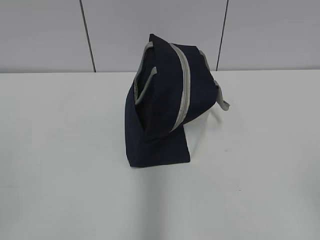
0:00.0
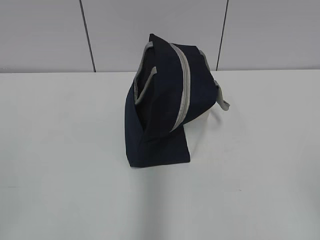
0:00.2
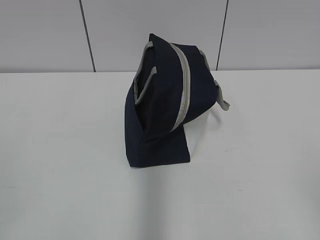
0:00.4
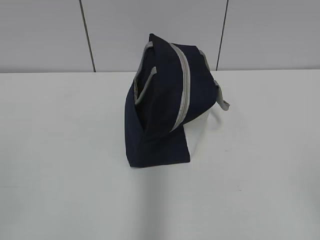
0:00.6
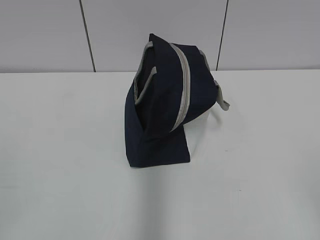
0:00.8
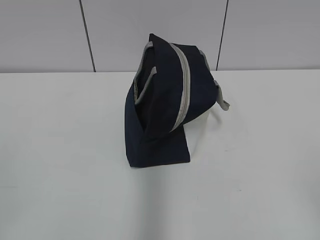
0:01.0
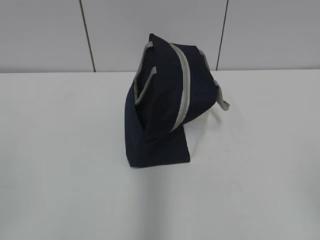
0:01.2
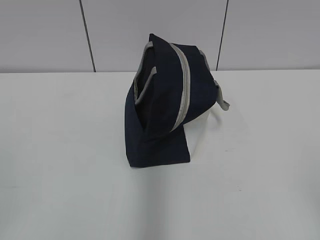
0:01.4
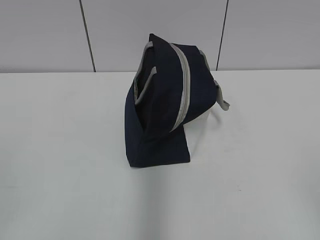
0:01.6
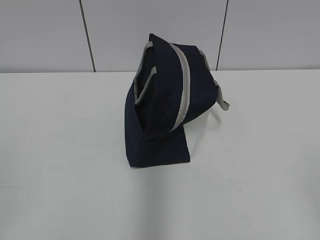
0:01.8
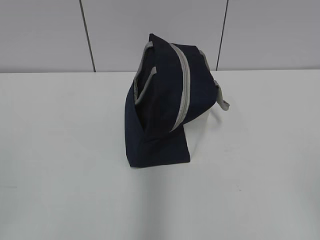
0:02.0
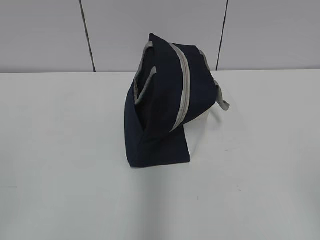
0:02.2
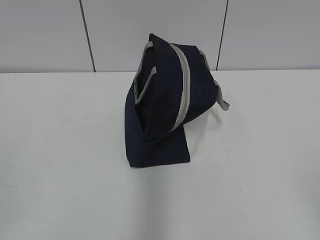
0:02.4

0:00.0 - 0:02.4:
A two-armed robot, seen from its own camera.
0:00.0 - 0:02.4: Both grippers stay about where they are.

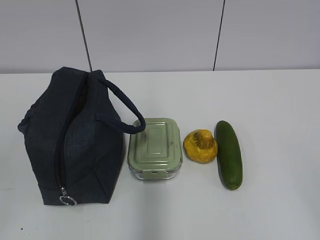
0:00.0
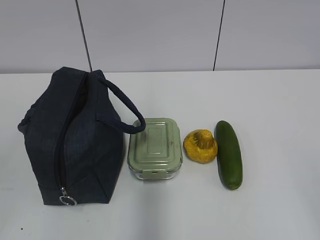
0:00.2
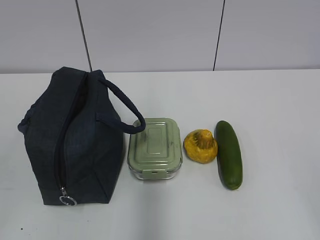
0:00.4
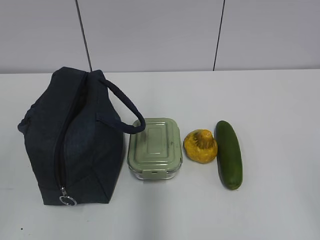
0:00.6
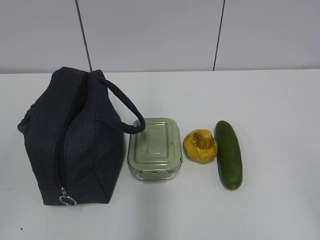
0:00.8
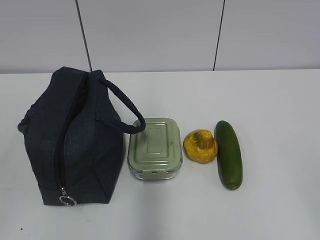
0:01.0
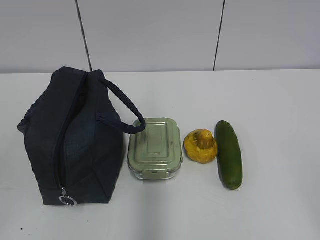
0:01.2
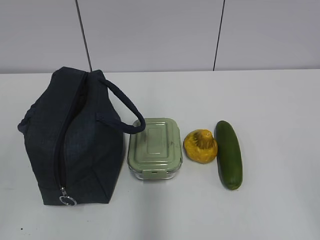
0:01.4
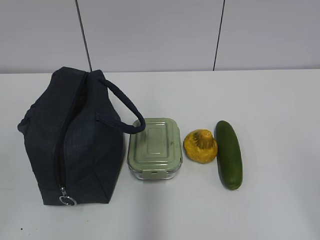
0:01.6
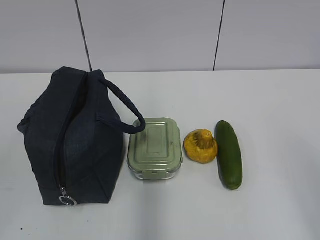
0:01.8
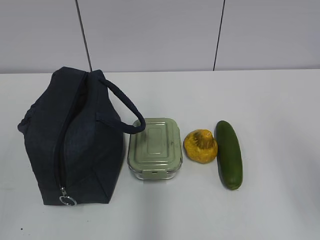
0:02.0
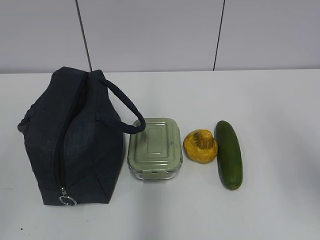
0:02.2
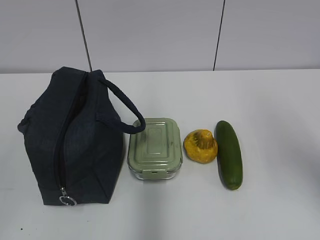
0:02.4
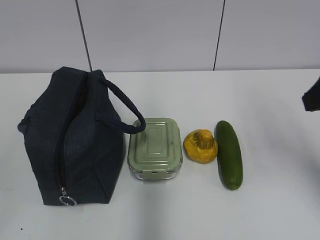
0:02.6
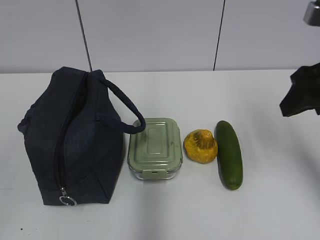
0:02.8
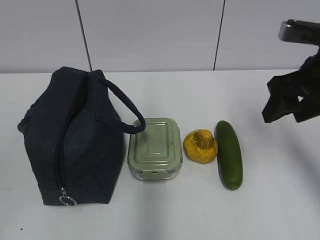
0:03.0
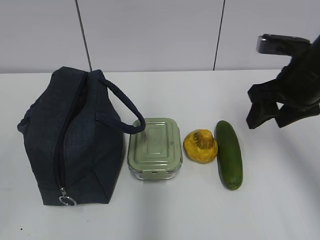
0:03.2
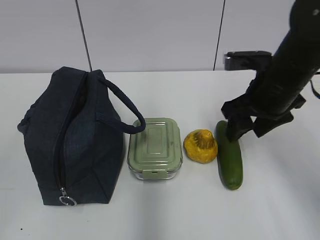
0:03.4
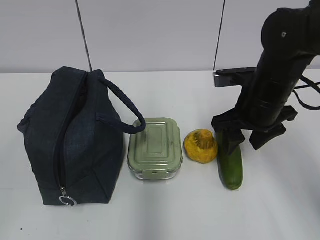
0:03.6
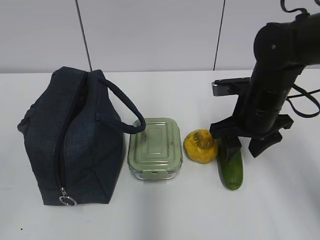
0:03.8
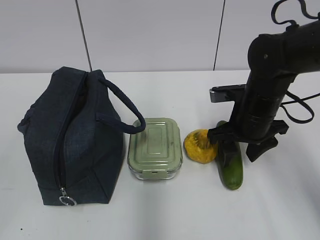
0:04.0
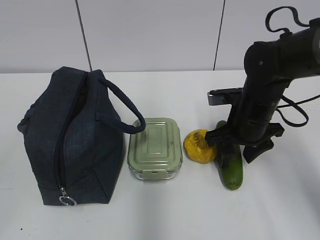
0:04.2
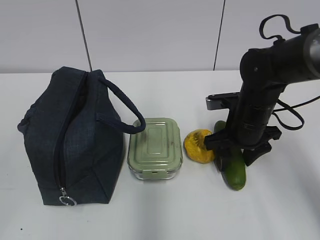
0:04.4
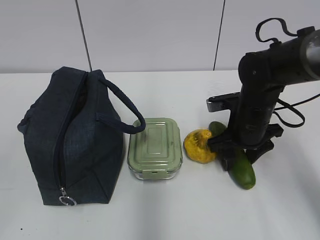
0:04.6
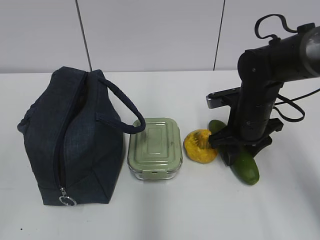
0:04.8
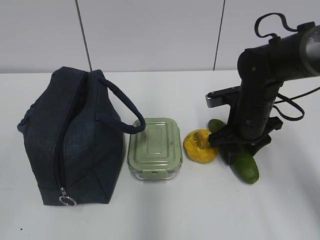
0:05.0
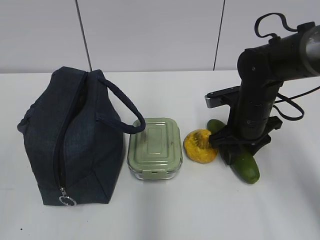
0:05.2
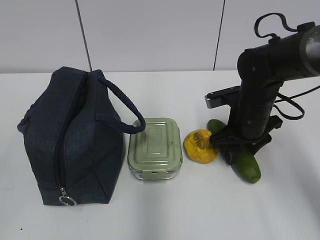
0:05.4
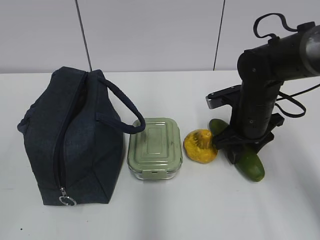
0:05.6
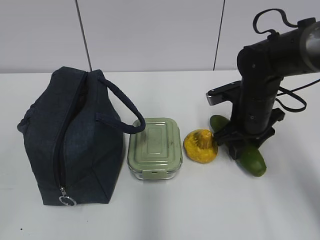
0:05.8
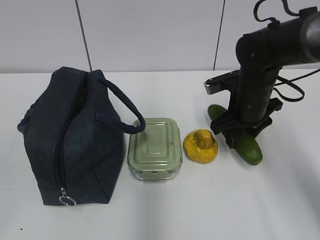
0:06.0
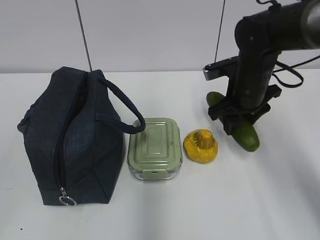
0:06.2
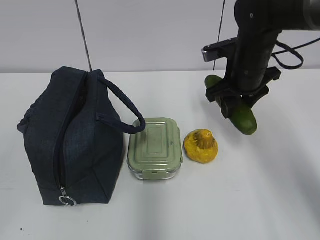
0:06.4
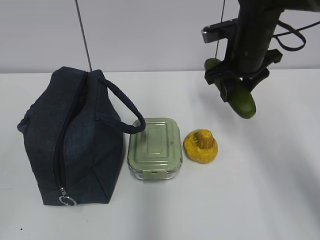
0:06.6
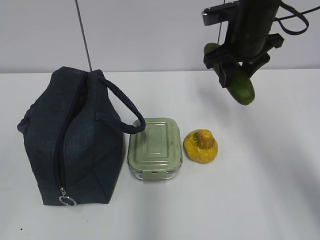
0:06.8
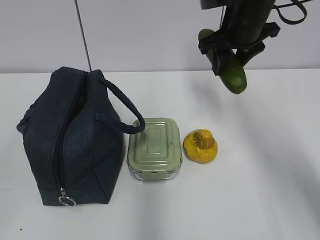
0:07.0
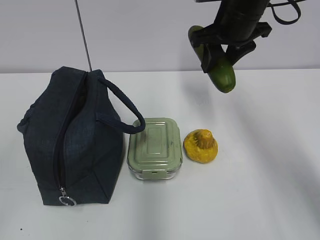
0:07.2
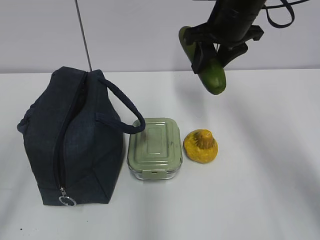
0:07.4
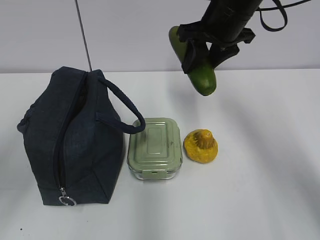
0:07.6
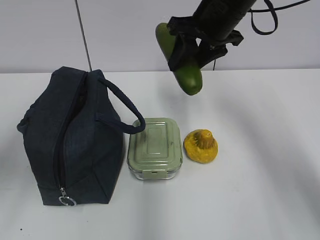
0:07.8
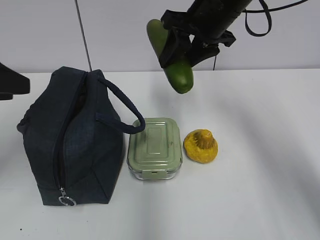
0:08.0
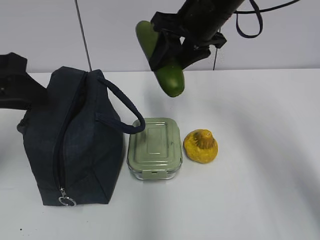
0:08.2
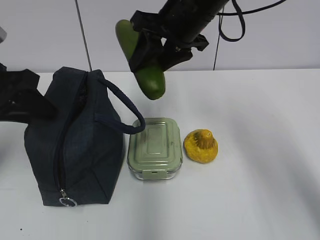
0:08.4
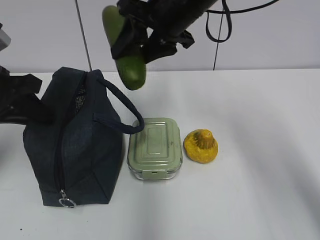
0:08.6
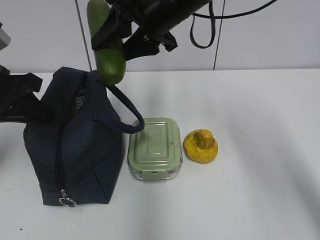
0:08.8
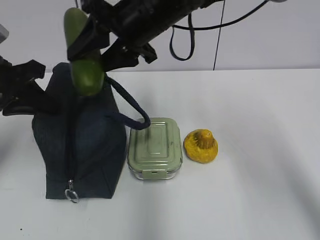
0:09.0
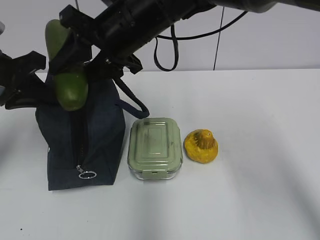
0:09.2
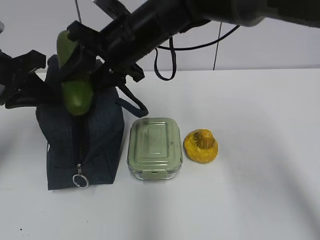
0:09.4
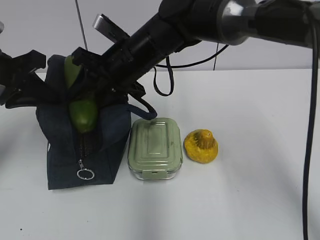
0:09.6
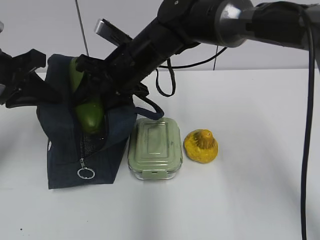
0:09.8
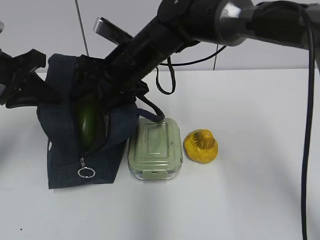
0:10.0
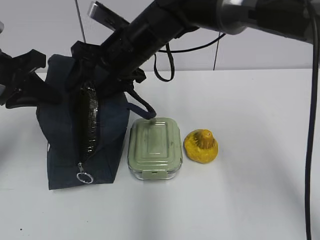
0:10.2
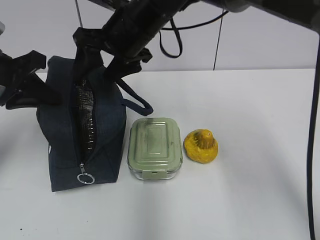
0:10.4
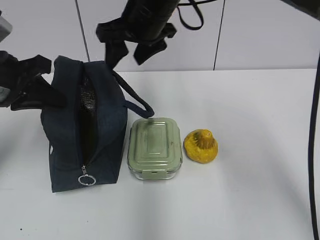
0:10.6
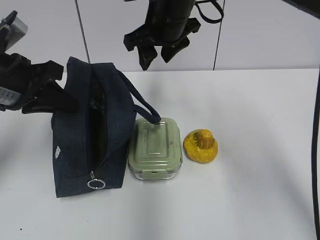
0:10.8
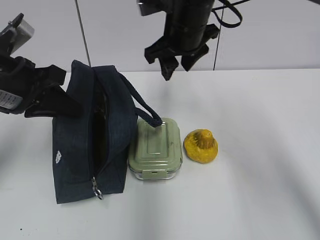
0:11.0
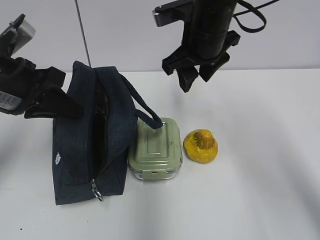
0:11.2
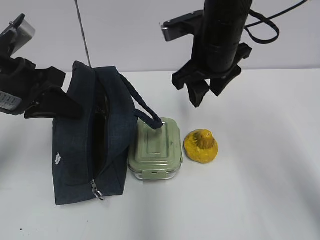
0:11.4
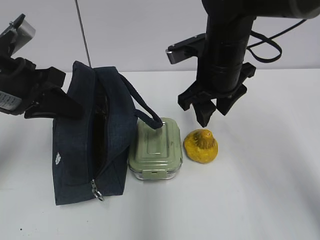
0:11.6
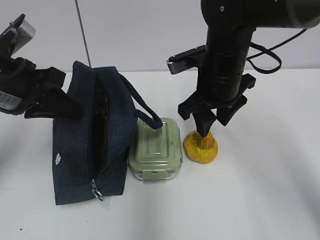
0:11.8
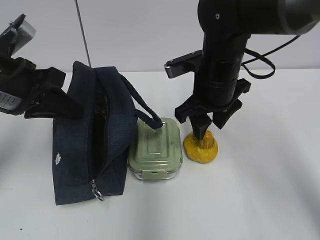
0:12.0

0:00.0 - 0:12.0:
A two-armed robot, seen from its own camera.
Step, 0:00.0 - 0:04.6: Grab the cucumber with your right hand.
Step, 0:04.8 - 0:09.4: Grab the lunch bag with your left hand.
Step, 0:09.6 - 0:10.0: Place it into the bag with your right hand.
0:01.6 - 0:03.0: The right gripper heads forward, covering roughly 30 cm.
0:03.0 - 0:04.4: The right gripper goes roughly 15 cm downward, to the left and forward.
0:04.4 - 0:06.0: The grippers make only small movements.
0:06.0 - 0:07.6: The right gripper is displaced upward by about 15 cm. The left gripper is displaced forward by approximately 15 cm.
0:07.6 - 0:09.0: The left gripper travels forward by approximately 15 cm, and closes up, while the right gripper moves to the left, roughly 10 cm.
0:09.0 - 0:10.4: The right gripper travels downward and back again, approximately 10 cm each way.
0:10.4 - 0:12.0: The right gripper goes about 15 cm to the right and downward.

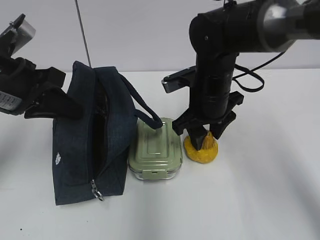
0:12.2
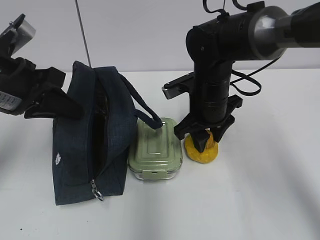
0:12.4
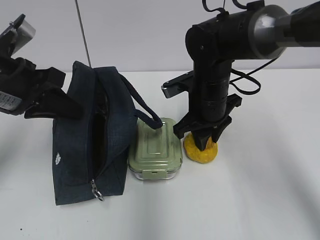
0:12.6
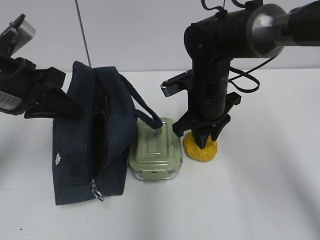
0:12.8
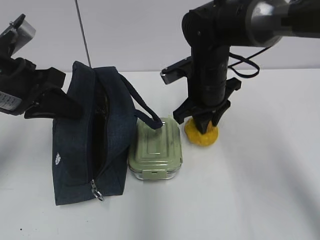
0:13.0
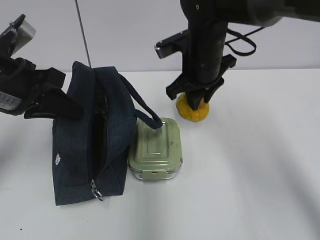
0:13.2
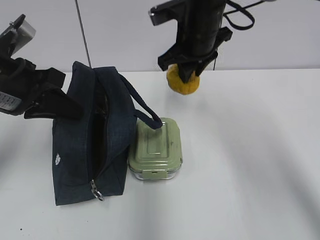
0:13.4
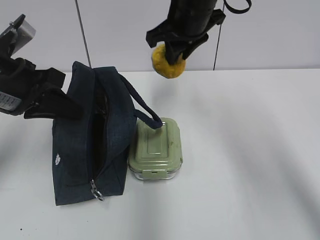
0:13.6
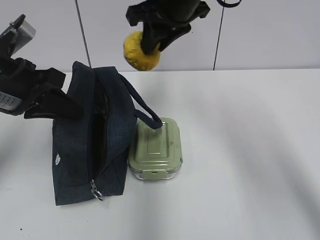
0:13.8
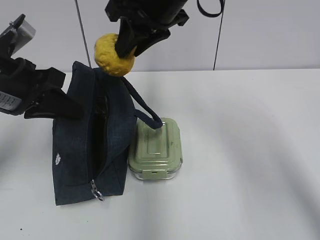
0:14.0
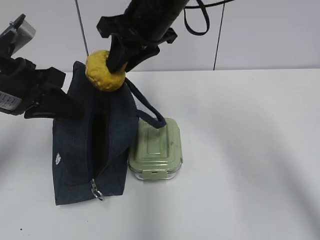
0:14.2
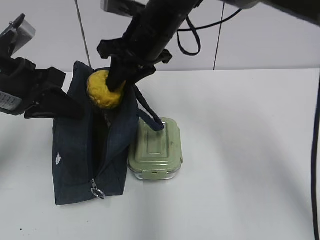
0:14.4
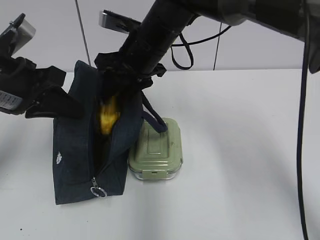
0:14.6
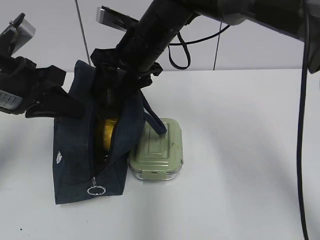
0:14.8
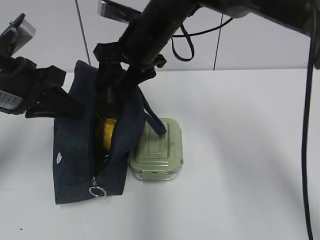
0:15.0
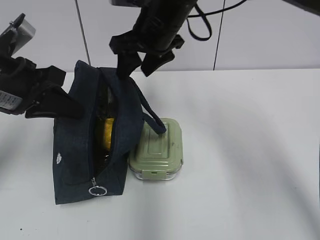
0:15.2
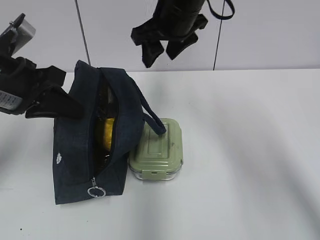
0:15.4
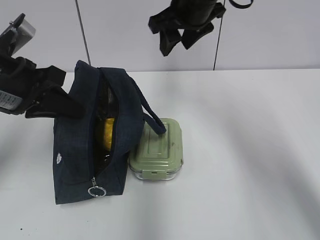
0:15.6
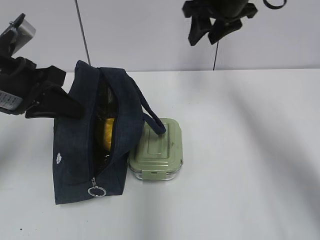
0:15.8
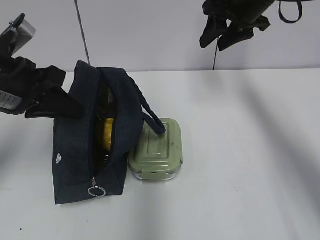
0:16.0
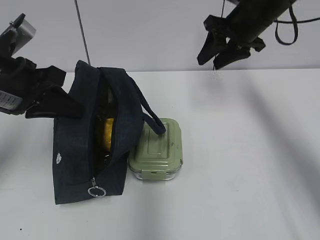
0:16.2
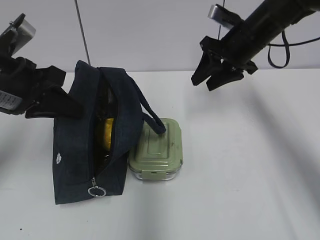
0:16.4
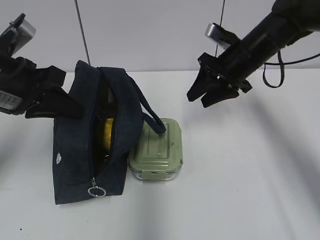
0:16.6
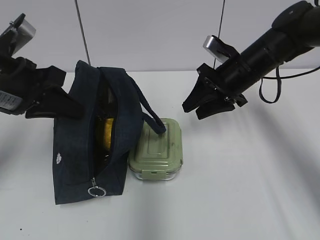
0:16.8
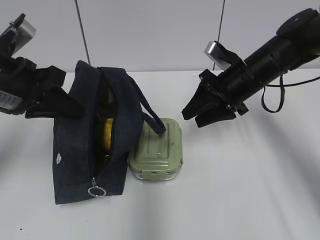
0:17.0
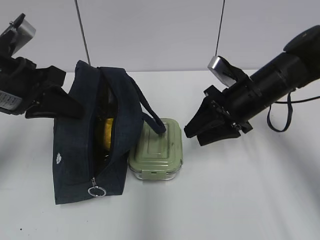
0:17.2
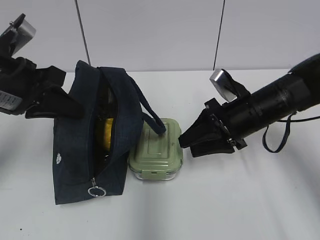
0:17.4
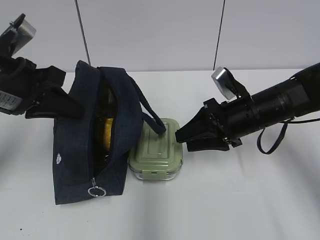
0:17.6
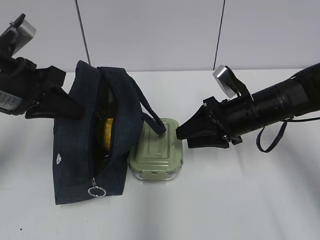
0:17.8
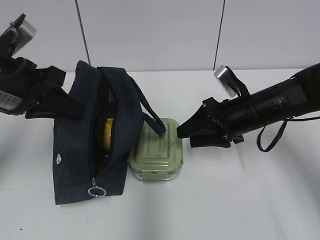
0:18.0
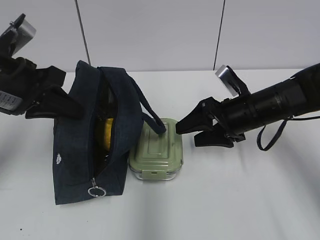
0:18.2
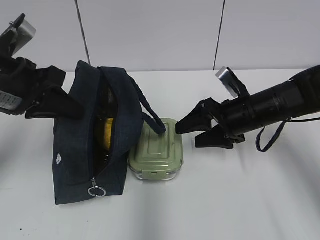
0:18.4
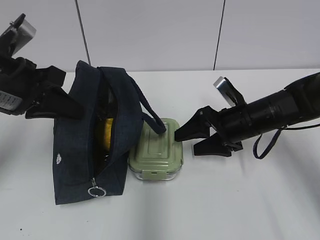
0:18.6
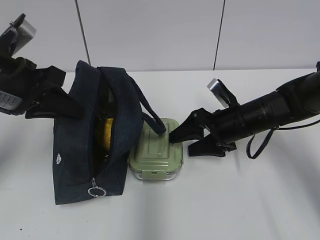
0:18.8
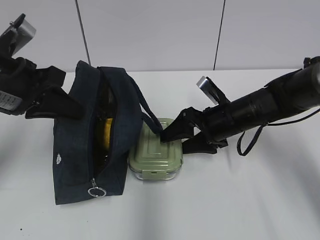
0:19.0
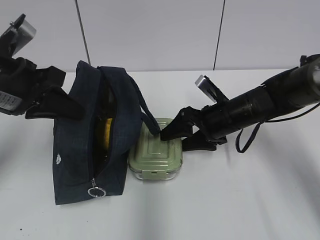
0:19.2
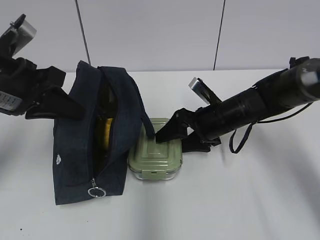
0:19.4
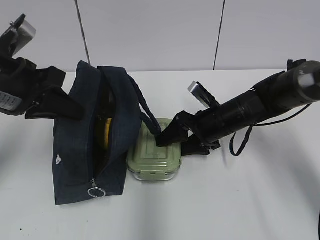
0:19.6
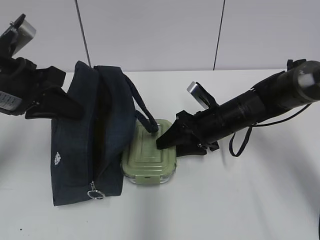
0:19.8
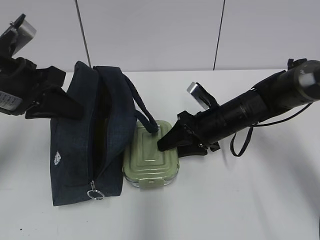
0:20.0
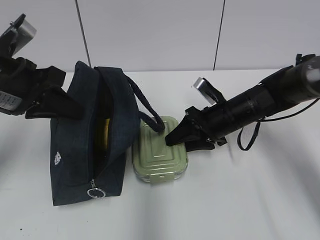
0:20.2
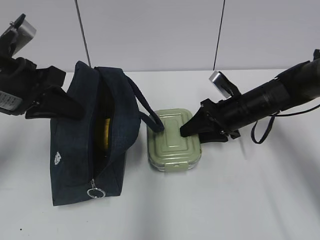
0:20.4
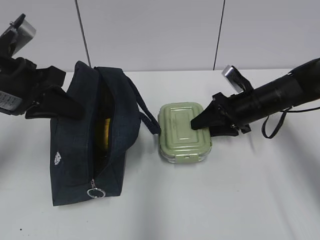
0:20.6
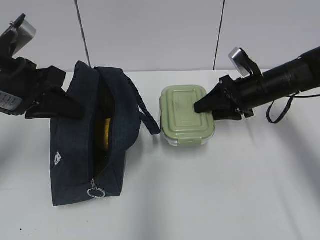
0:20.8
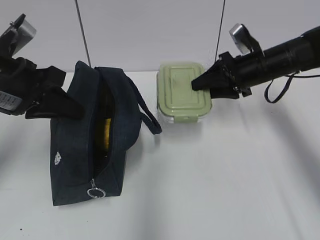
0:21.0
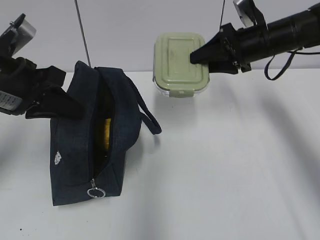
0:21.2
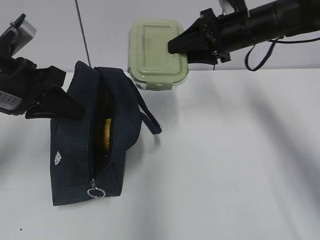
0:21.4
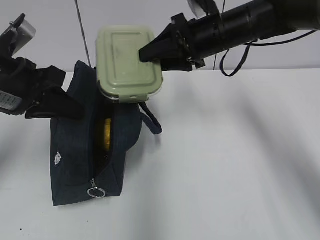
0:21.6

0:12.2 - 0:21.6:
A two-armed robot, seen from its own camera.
Step, 0:12.6 - 0:14.8: Place it into the bag with your right hand.
Step, 0:15.0 - 0:19.8: Grab the lunch box with your right hand.
0:12.2 - 0:13.8: The right gripper goes approximately 15 cm upward.
0:13.8 - 0:15.4: The right gripper opens up.
0:15.4 - 0:17.0: The right gripper heads downward and to the right, covering approximately 15 cm.
0:17.0 - 0:18.4: The right gripper is displaced downward by some 5 cm, and opens its fingers.
0:18.4 - 0:20.0: The right gripper shifts by roughly 5 cm, and closes its fingers.
0:20.0 - 0:21.6: The right gripper travels upward by some 15 cm.
